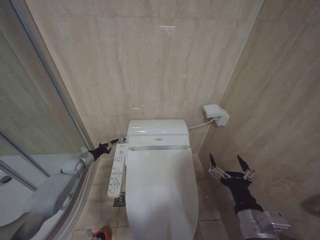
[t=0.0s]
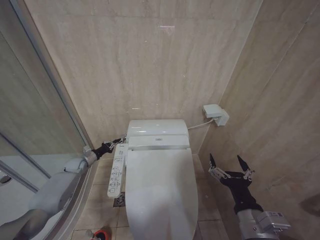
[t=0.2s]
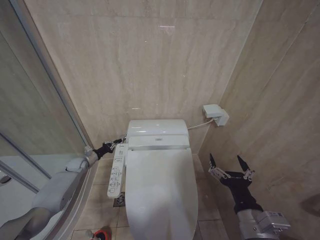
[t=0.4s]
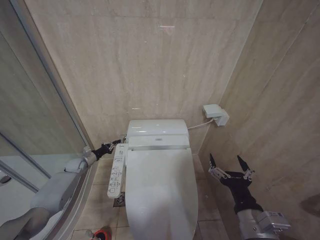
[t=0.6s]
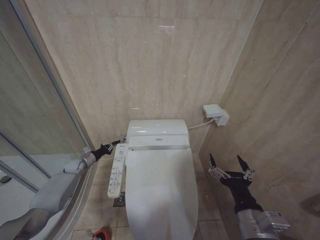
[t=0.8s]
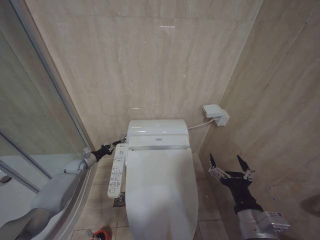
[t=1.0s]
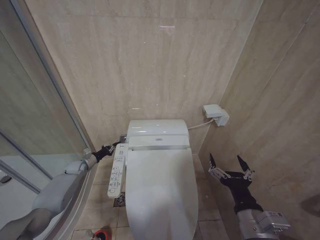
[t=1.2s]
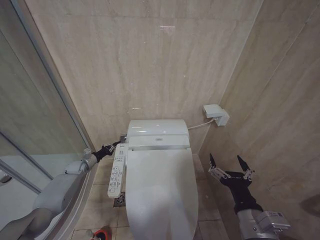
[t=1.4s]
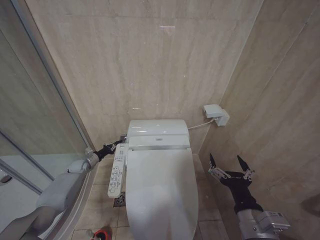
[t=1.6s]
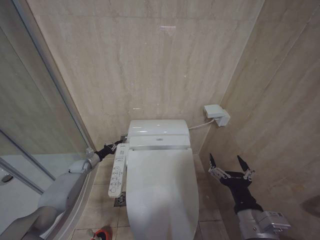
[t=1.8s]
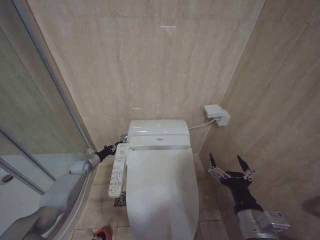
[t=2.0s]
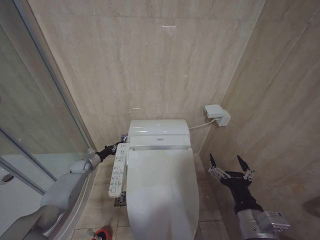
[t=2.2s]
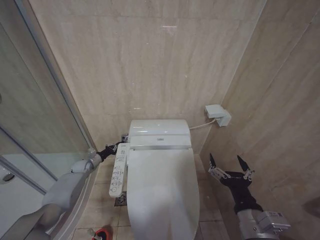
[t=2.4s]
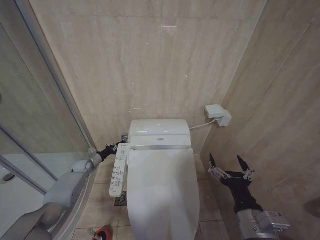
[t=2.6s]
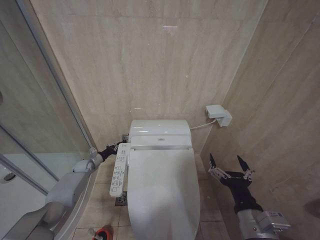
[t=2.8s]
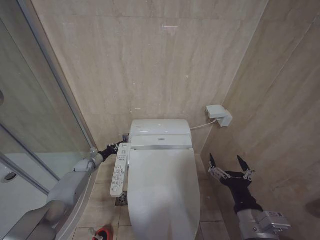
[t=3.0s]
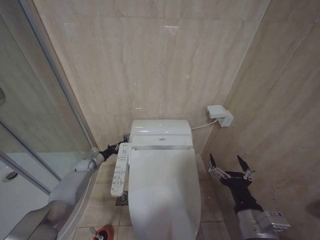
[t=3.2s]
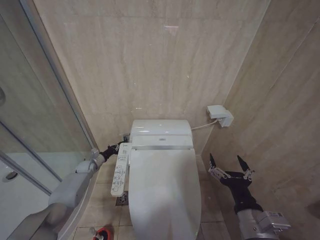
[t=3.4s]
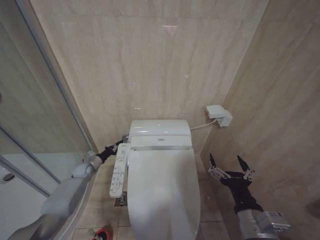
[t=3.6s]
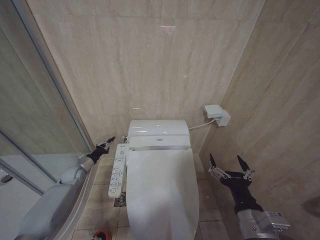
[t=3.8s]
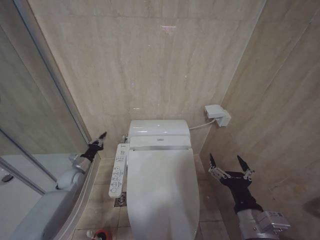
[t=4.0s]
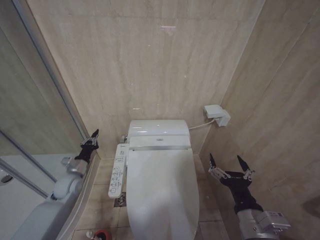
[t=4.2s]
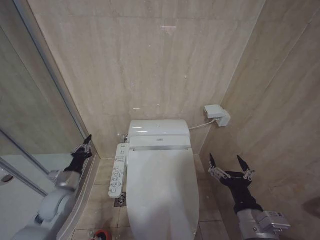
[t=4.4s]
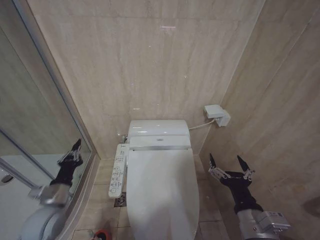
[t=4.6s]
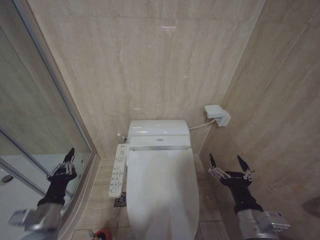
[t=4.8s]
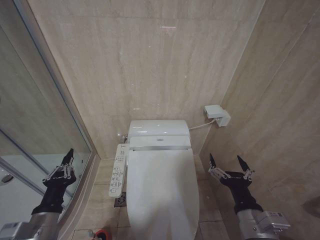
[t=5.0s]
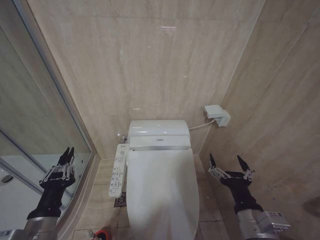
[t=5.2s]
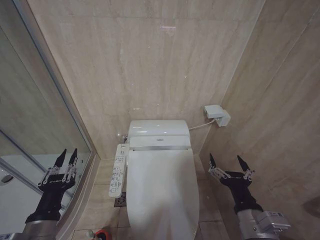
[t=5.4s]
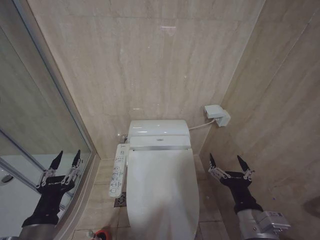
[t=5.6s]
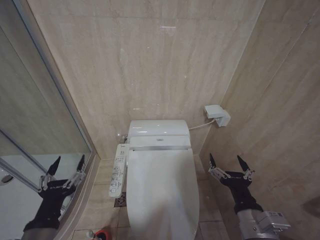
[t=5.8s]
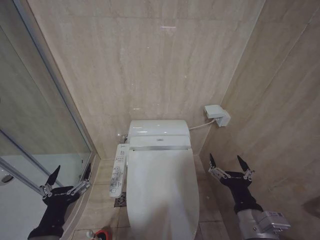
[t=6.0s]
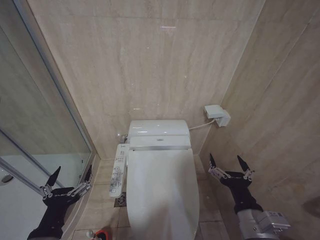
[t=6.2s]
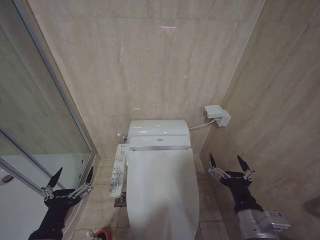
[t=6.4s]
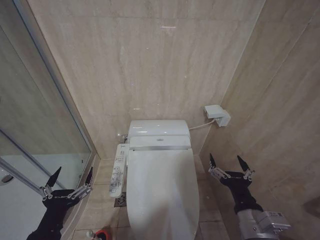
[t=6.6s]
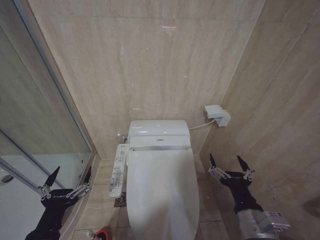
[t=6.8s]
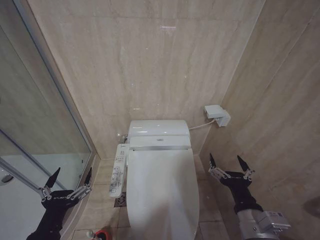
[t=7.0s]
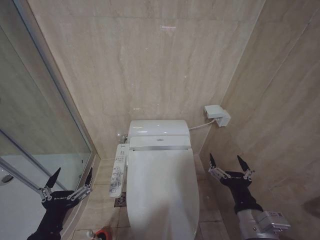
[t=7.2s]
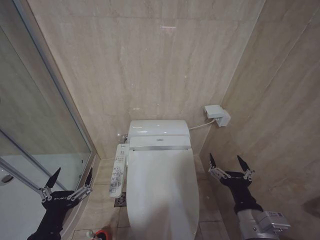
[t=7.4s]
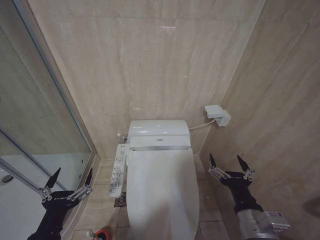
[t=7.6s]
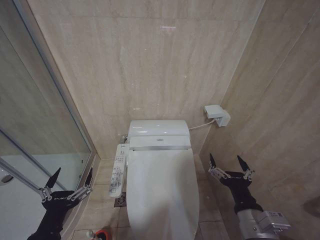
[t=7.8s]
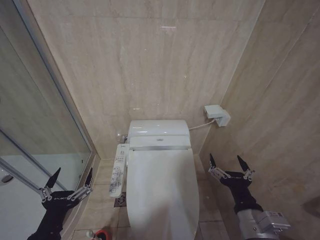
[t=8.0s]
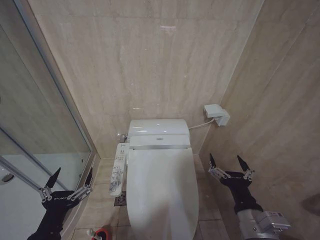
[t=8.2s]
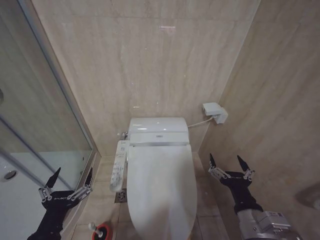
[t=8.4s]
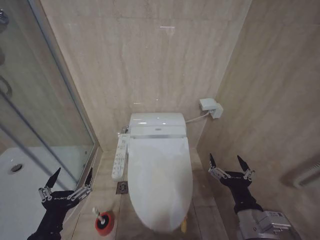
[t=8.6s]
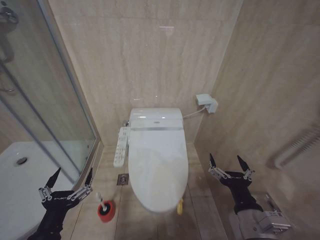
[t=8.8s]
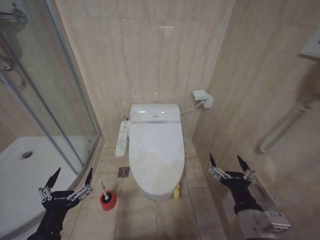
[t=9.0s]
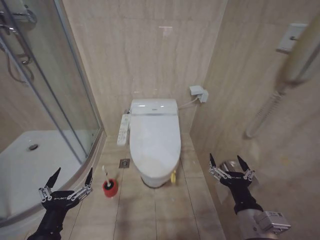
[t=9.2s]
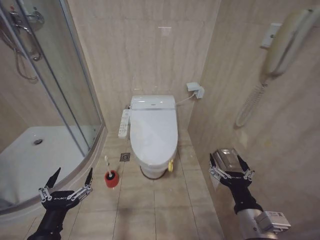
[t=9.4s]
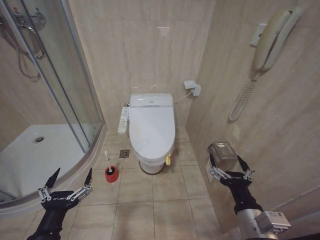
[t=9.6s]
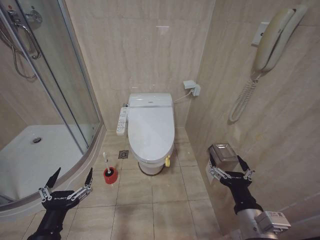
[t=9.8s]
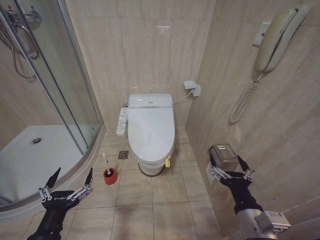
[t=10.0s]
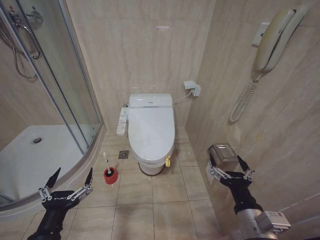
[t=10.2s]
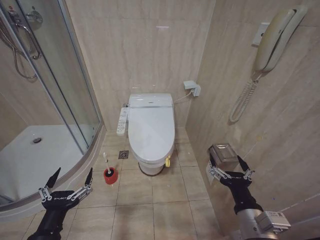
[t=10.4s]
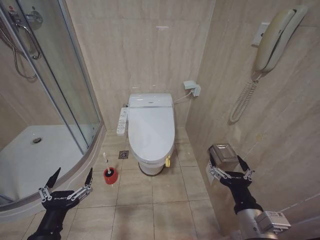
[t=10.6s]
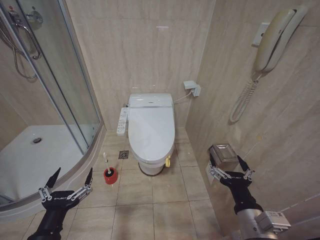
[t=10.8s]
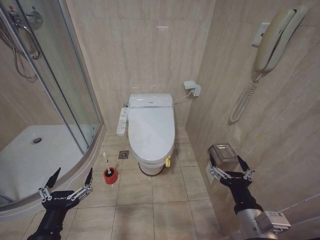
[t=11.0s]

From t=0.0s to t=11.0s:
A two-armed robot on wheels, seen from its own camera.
Task of the whole recording: Open the toilet lid, clean the toilet bowl with a toilet brush, close the toilet lid, and flush.
From t=0.0s to t=1.6s: The grippers stay close to where they were, moving slightly.
From t=1.6s to t=3.2s: The grippers make only small movements.
From t=3.2s to t=4.8s: The left gripper heads backward and upward, covering about 35 cm.
From t=4.8s to t=6.2s: The left gripper is displaced backward and to the right by approximately 15 cm, and opens its fingers.
From t=6.2s to t=7.8s: The two grippers keep their place.
From t=9.4s to t=11.0s: Both grippers stay put.

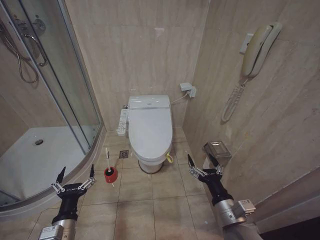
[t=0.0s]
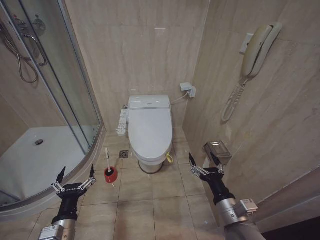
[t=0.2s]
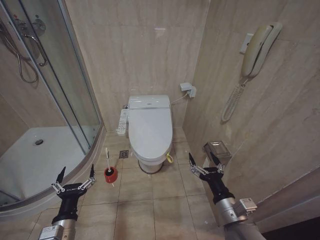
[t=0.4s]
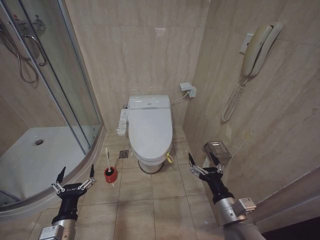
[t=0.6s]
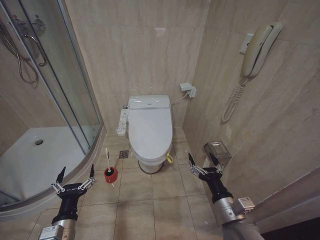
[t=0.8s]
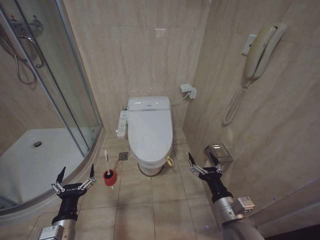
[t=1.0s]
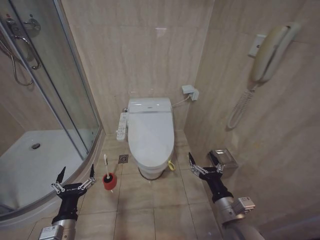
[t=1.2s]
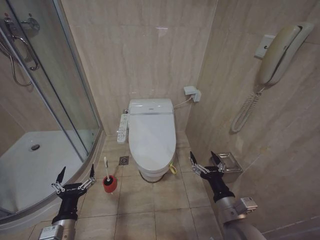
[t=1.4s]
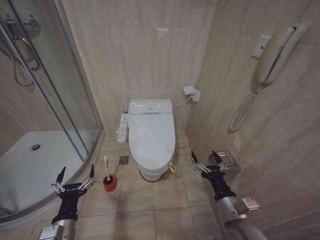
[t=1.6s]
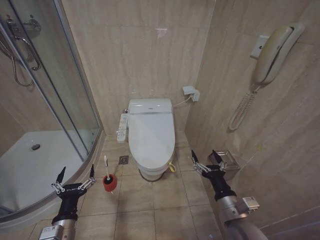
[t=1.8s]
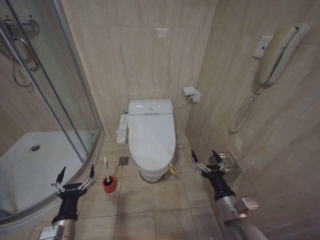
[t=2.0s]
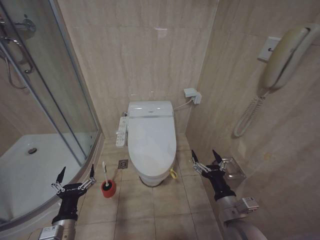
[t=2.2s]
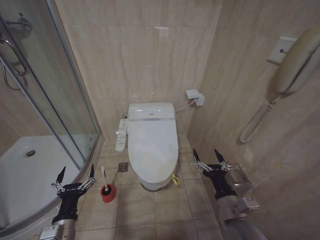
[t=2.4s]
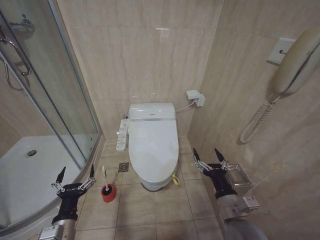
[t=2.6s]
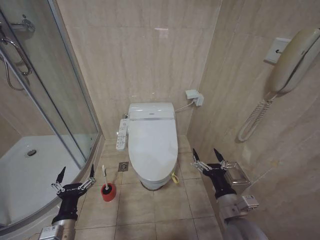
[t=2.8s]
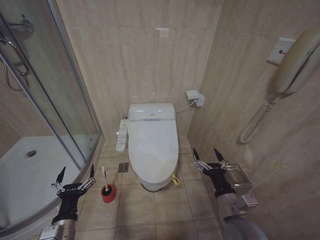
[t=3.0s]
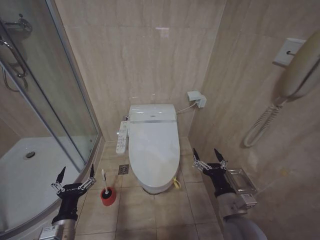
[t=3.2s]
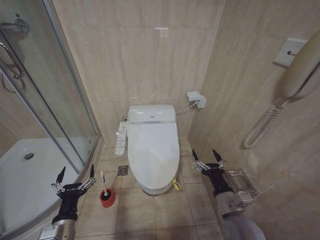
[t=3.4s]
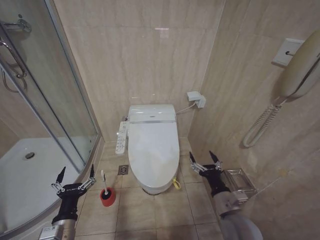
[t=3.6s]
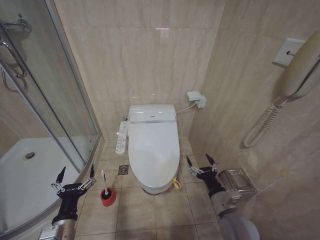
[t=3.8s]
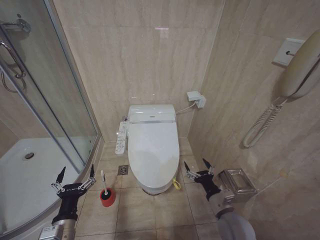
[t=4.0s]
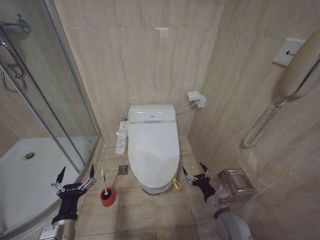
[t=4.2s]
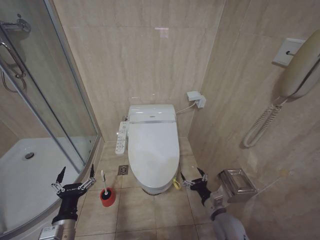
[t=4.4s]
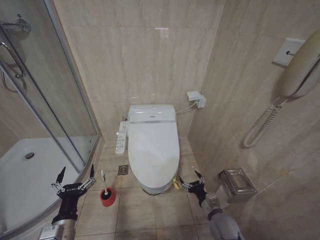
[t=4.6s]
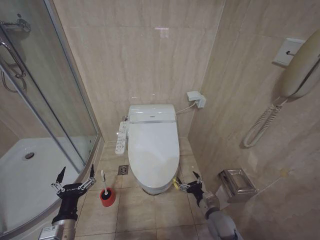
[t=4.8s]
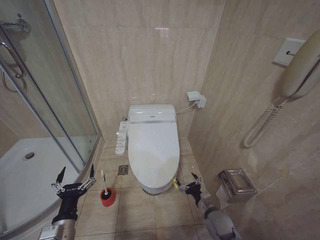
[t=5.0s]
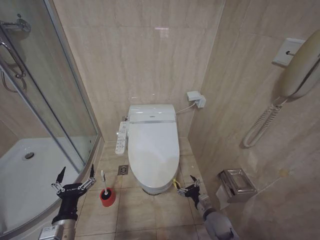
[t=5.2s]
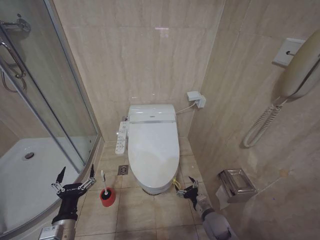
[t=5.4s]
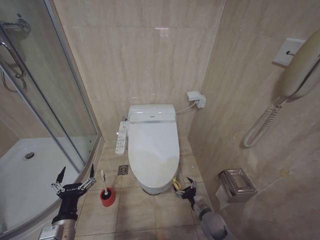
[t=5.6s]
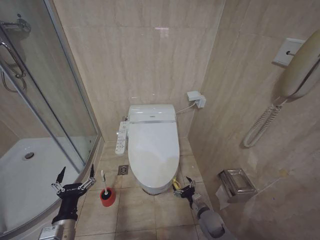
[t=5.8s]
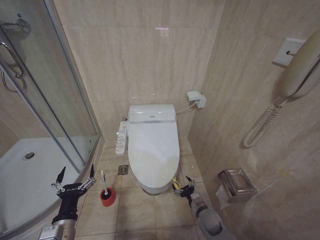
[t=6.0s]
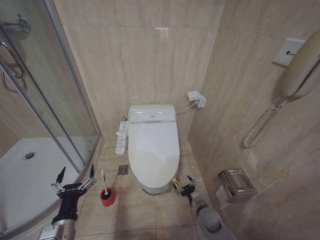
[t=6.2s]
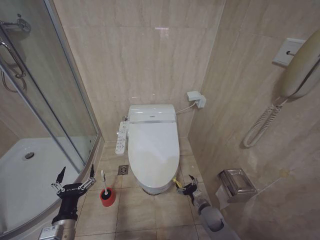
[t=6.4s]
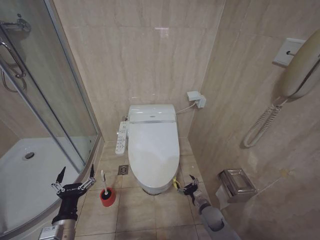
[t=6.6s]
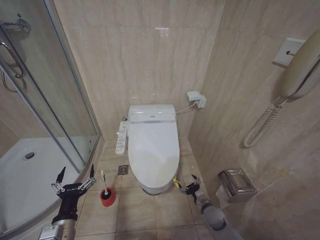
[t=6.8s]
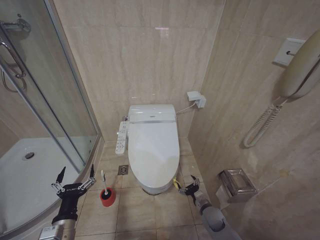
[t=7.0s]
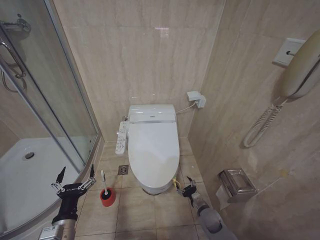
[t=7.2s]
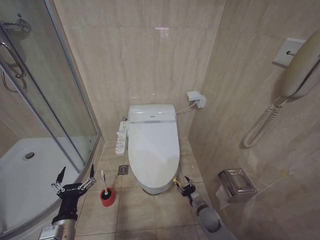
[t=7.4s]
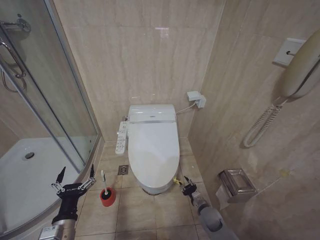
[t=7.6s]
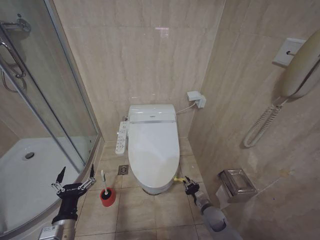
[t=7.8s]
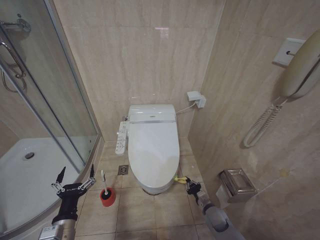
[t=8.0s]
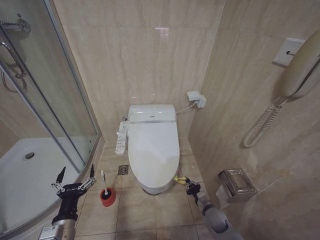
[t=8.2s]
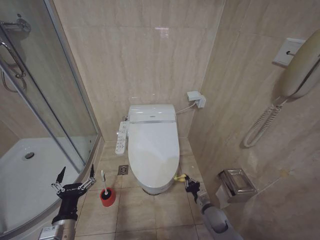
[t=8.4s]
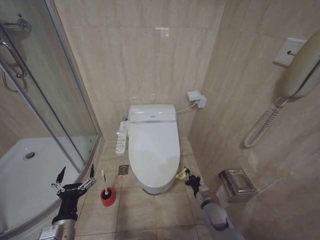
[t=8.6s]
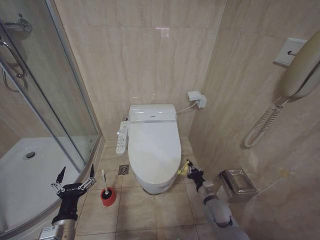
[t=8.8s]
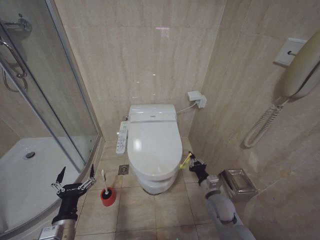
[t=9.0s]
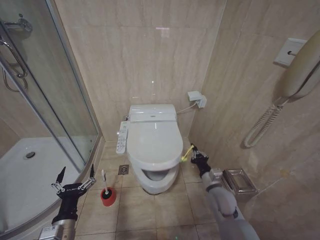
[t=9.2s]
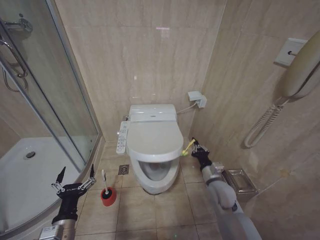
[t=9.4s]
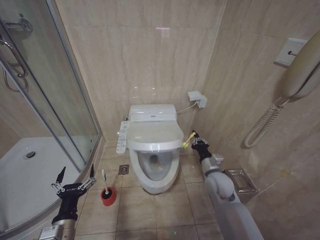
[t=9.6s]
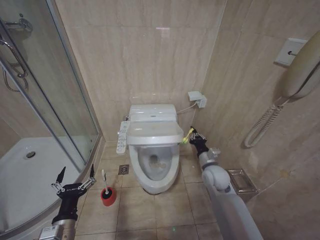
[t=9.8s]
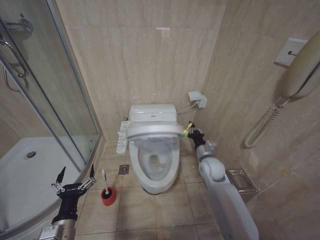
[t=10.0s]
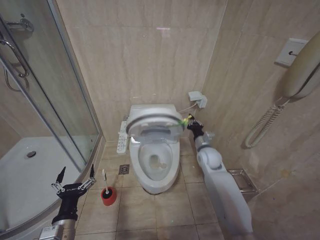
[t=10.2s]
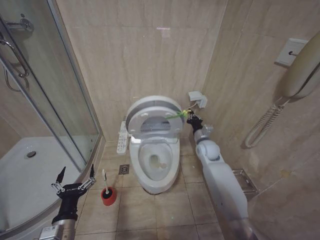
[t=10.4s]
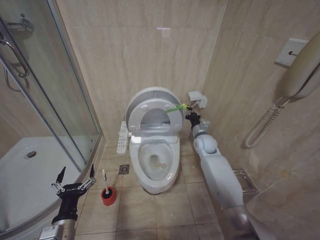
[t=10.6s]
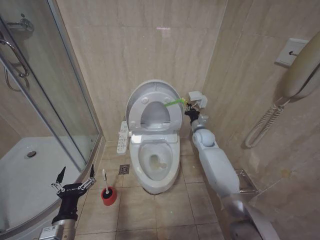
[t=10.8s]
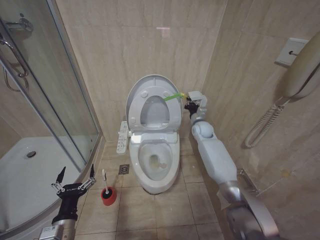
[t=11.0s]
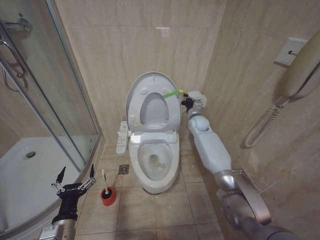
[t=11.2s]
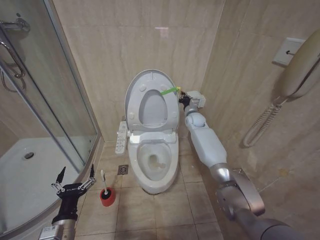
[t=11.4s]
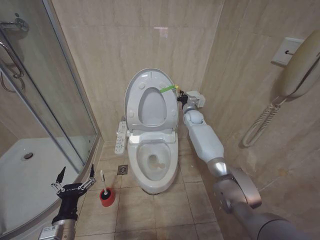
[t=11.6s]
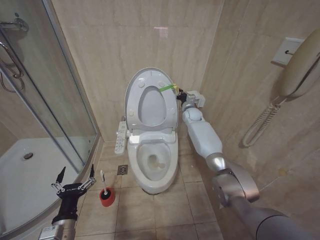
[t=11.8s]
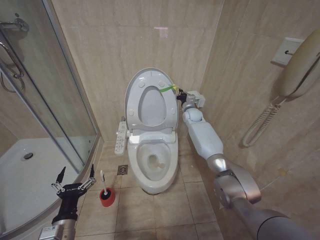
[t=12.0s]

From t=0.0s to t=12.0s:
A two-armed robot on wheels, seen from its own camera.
Task of the whole recording: Open the toilet lid, clean the toilet bowl with a toilet brush, close the toilet lid, and flush.
From t=1.6s to t=3.0s: The two grippers keep their place.
From t=3.0s to t=4.4s: The right gripper is displaced downward by approximately 10 cm.
From t=4.4s to t=6.0s: The right gripper goes roughly 10 cm downward.
From t=7.6s to t=9.0s: The right gripper heads upward, covering roughly 15 cm, and closes.
From t=9.0s to t=10.4s: The right gripper heads forward and upward, covering about 20 cm.
From t=10.4s to t=12.0s: The right gripper shifts some 20 cm forward and upward.
